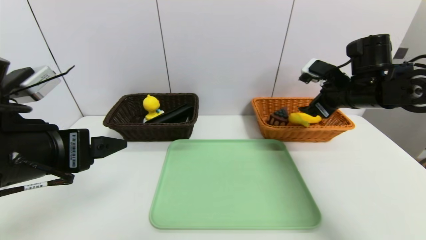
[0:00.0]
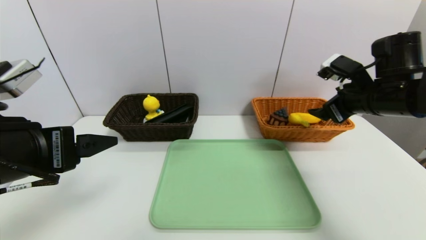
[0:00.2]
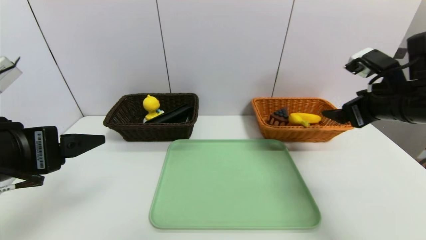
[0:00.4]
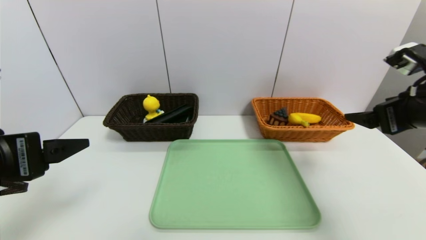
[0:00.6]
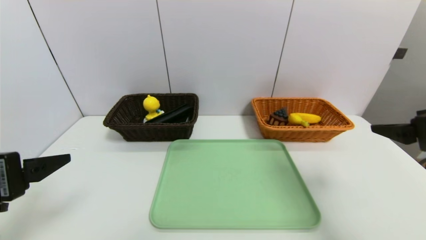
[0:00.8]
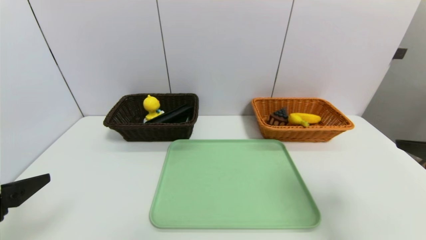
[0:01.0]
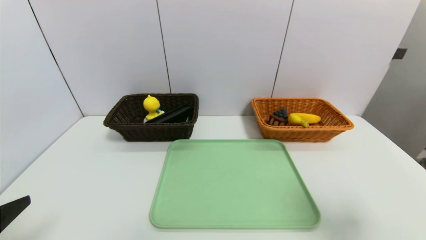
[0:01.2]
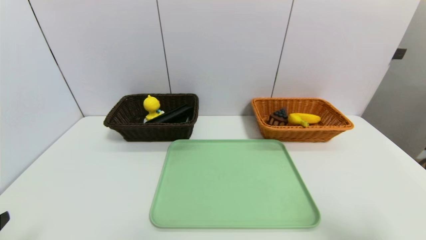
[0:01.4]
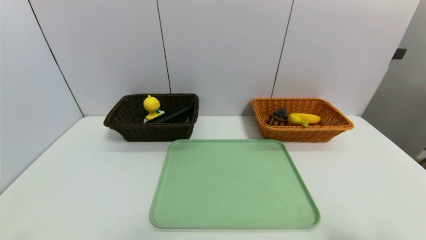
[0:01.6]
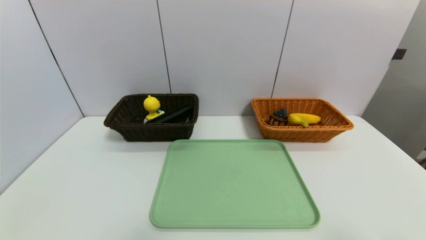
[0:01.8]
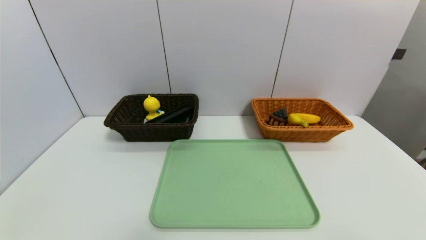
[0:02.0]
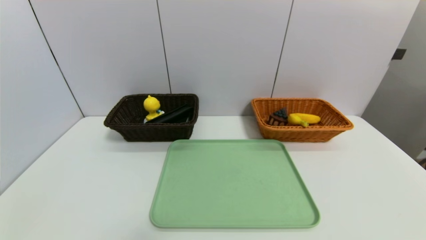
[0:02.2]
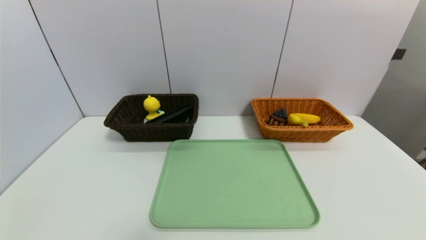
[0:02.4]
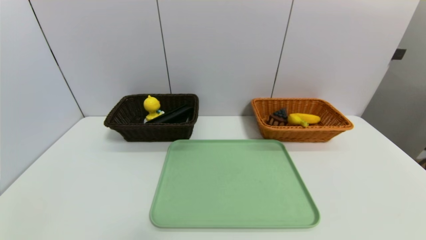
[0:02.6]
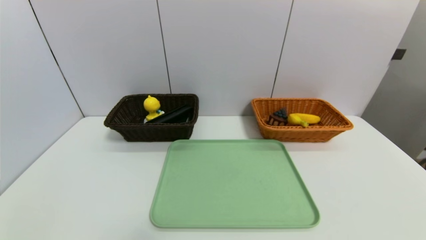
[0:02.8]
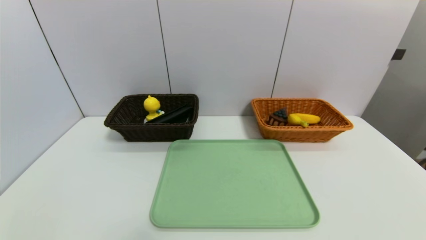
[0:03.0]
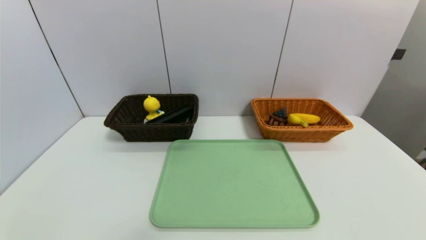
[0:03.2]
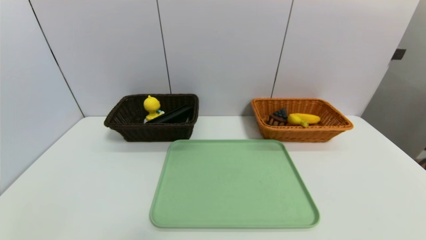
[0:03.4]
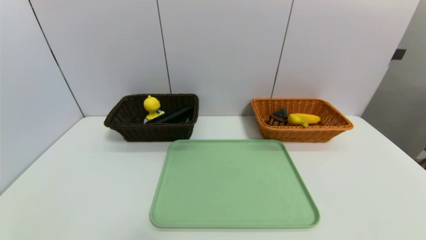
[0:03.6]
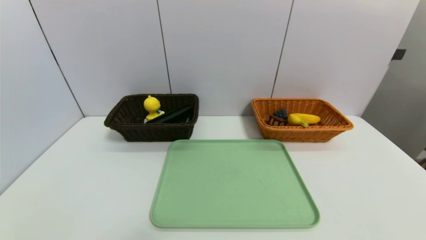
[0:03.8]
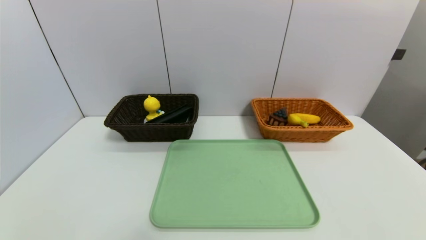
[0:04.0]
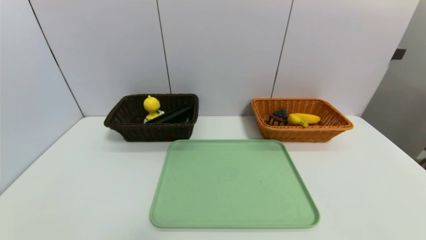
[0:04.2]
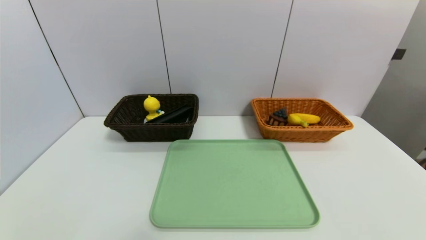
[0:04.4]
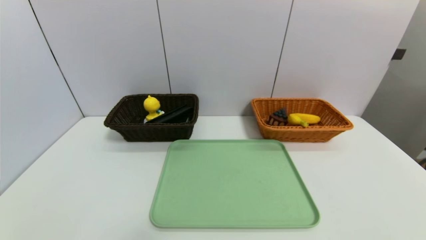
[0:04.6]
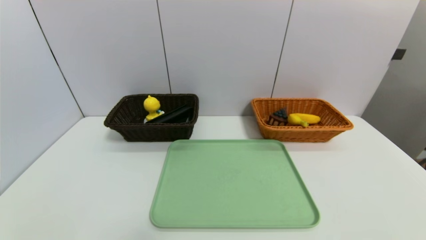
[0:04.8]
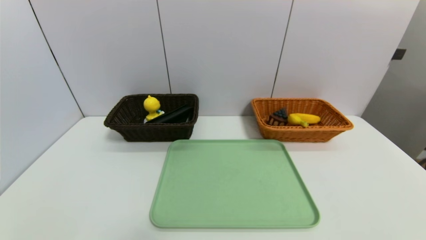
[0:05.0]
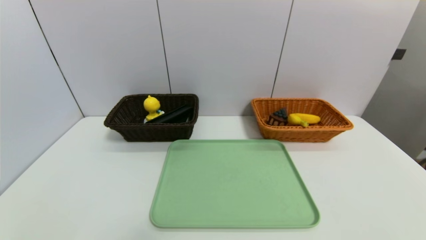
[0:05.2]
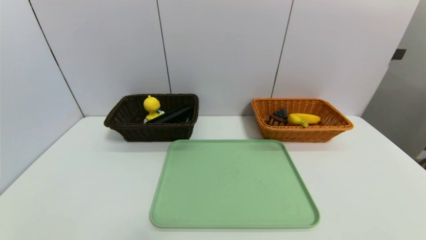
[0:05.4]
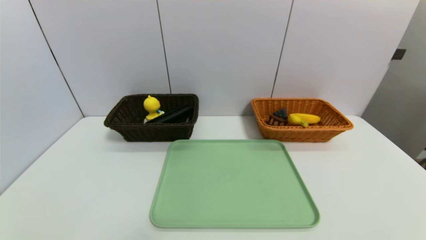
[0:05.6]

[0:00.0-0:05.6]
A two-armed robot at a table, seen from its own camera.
Task of the whole recording: place the food in the right basket with the right gripper, and place the non food items in the left basket with the left gripper.
0:00.0 to 0:01.4: The right gripper is displaced backward by some 30 cm. The left gripper goes about 15 cm backward, to the left and downward.
0:01.4 to 0:02.8: The right gripper heads backward and downward, covering roughly 15 cm.

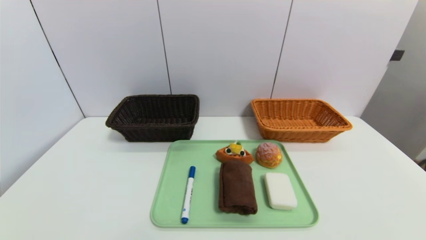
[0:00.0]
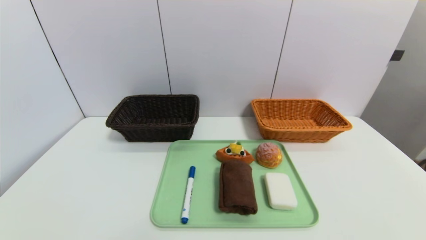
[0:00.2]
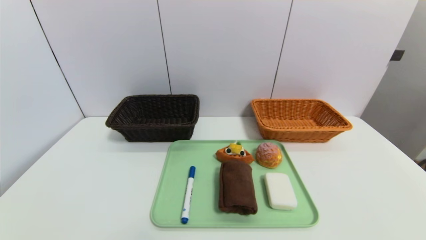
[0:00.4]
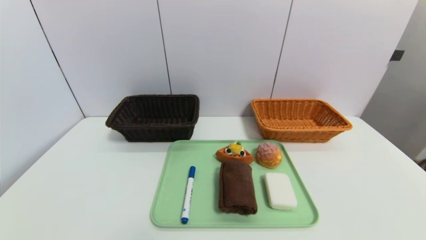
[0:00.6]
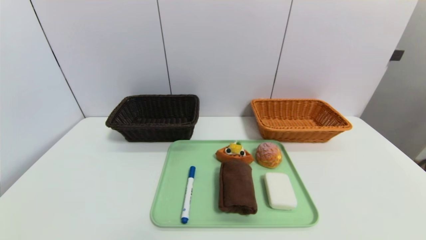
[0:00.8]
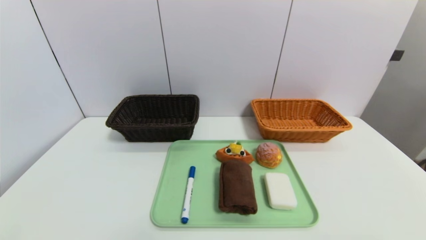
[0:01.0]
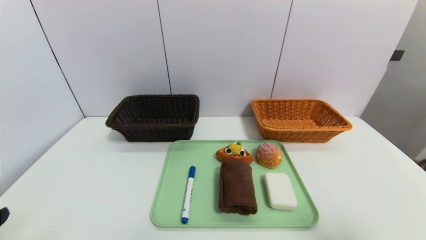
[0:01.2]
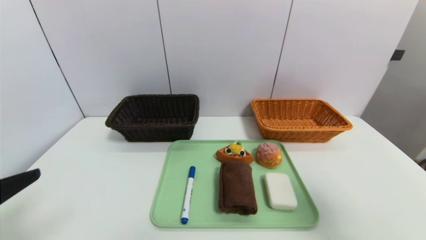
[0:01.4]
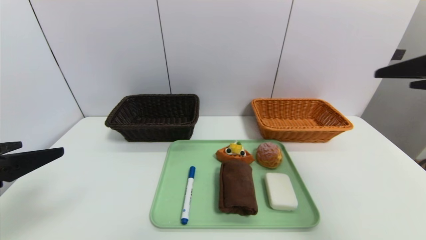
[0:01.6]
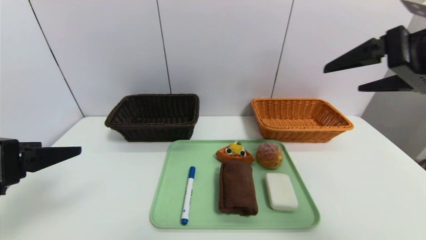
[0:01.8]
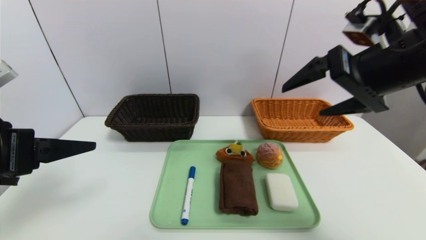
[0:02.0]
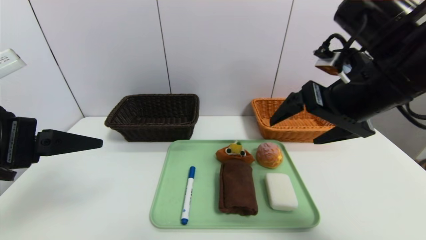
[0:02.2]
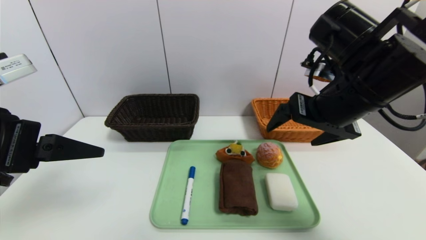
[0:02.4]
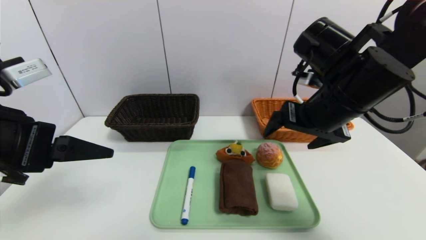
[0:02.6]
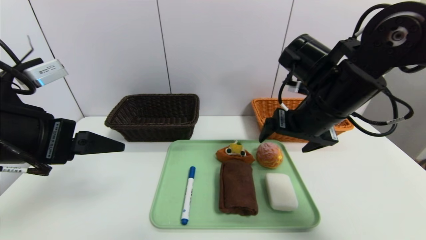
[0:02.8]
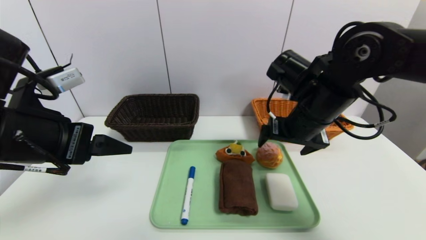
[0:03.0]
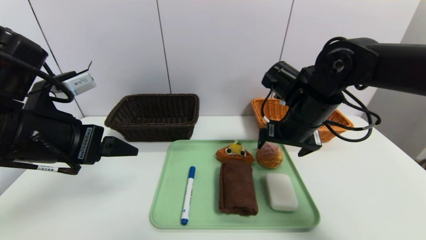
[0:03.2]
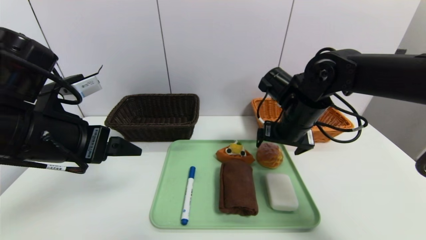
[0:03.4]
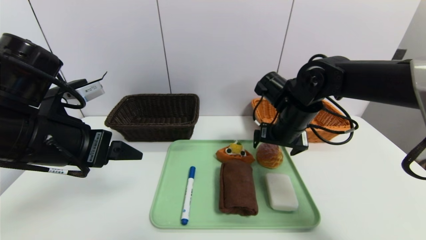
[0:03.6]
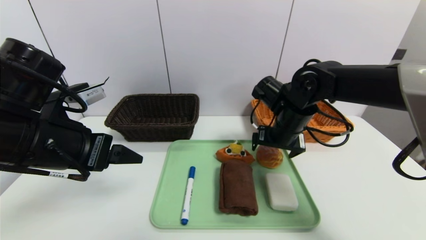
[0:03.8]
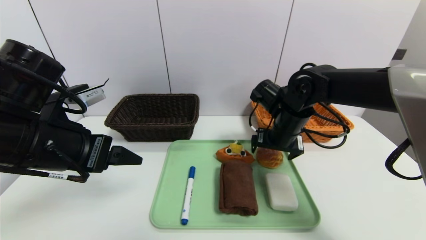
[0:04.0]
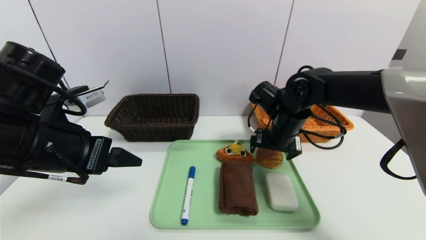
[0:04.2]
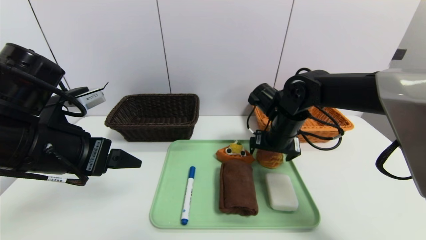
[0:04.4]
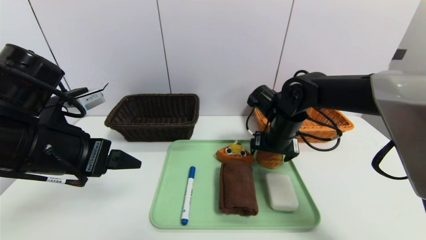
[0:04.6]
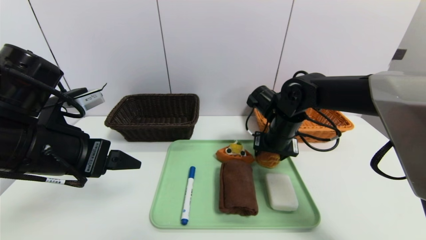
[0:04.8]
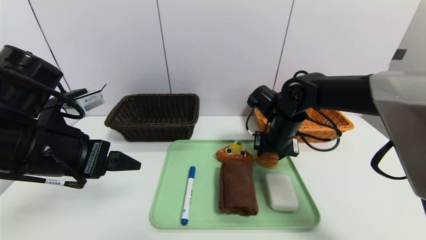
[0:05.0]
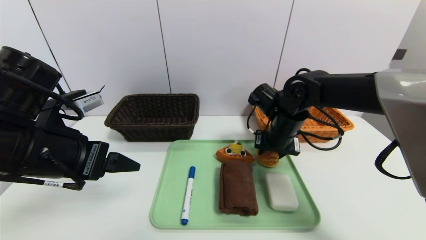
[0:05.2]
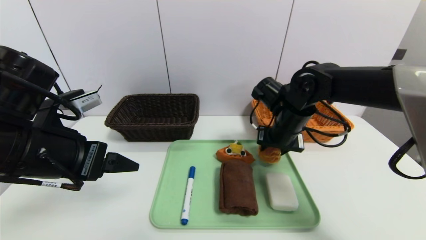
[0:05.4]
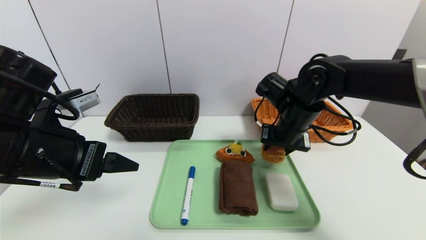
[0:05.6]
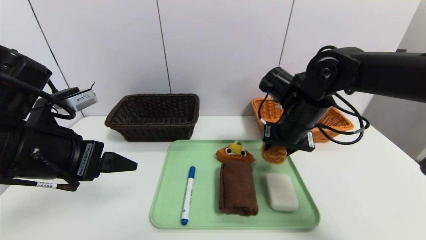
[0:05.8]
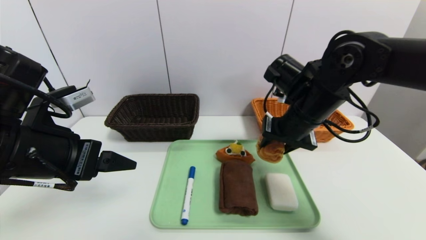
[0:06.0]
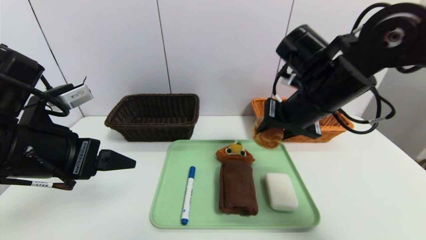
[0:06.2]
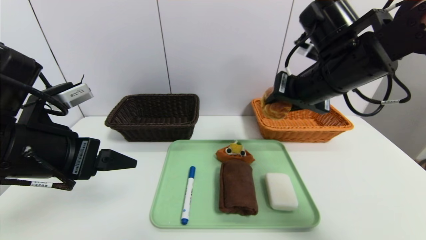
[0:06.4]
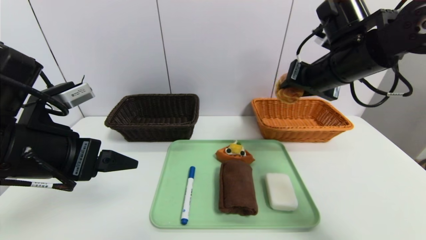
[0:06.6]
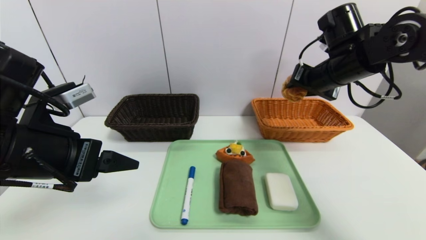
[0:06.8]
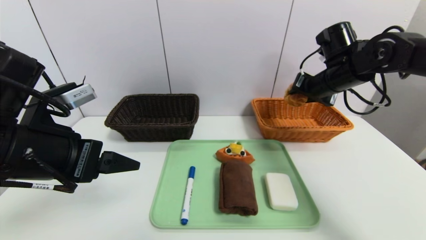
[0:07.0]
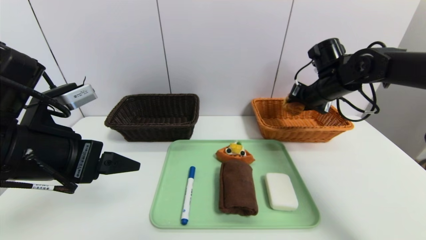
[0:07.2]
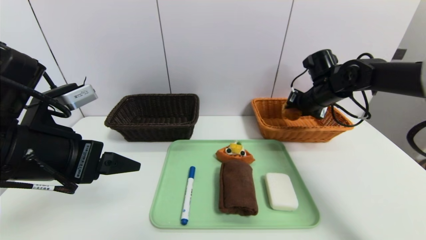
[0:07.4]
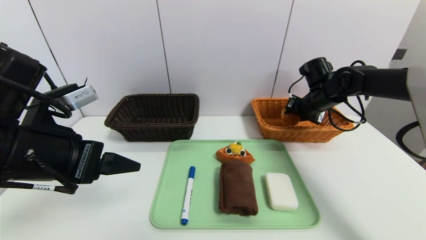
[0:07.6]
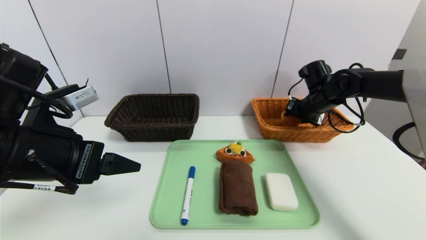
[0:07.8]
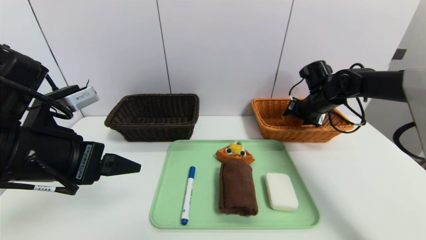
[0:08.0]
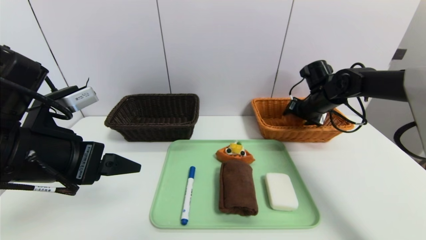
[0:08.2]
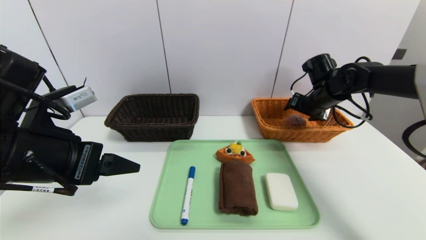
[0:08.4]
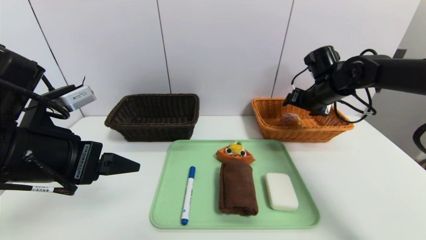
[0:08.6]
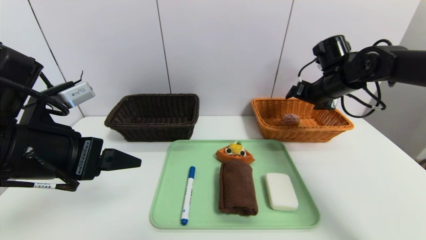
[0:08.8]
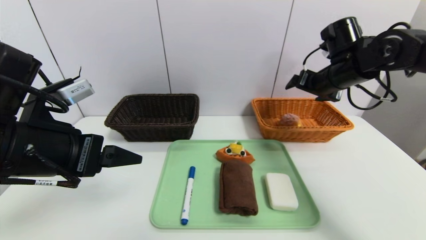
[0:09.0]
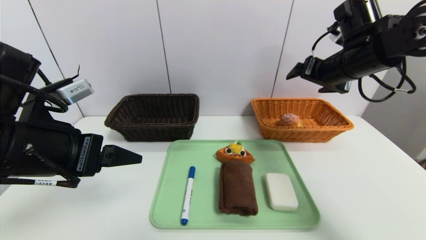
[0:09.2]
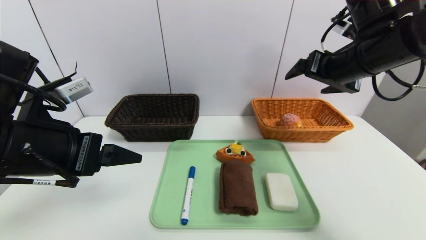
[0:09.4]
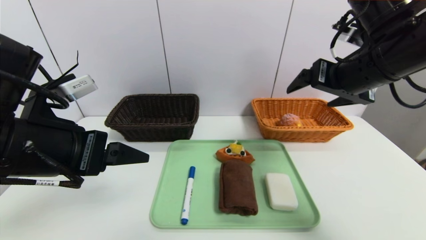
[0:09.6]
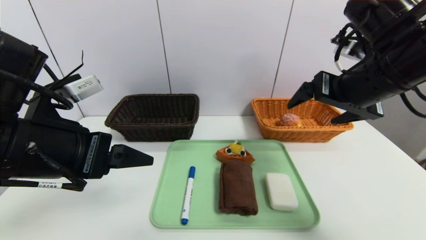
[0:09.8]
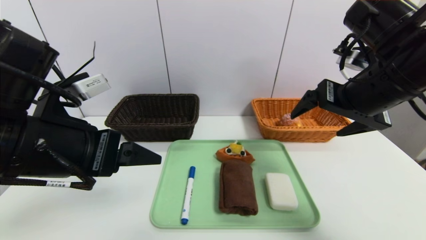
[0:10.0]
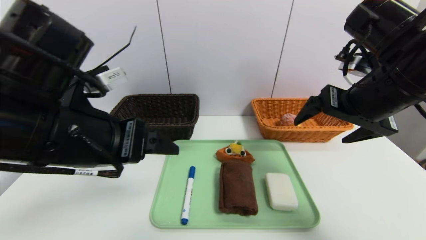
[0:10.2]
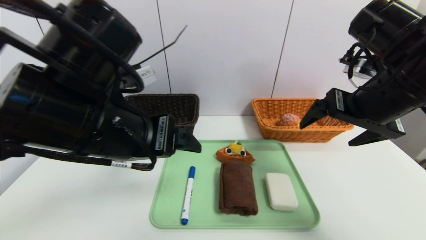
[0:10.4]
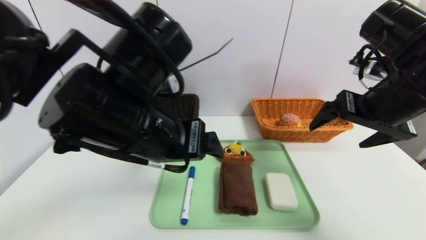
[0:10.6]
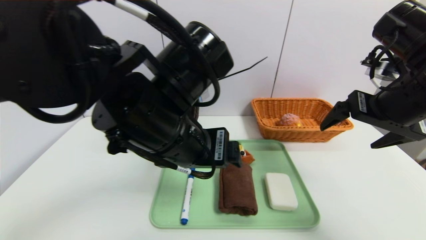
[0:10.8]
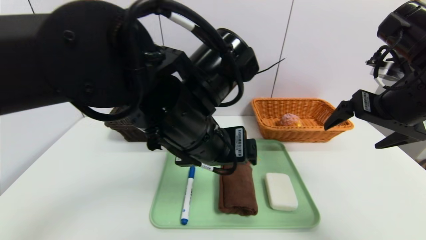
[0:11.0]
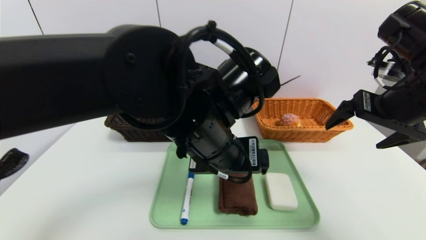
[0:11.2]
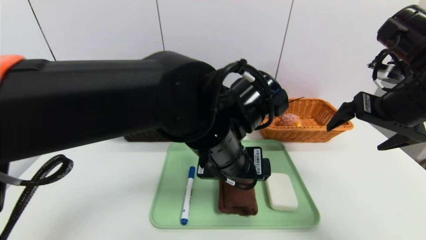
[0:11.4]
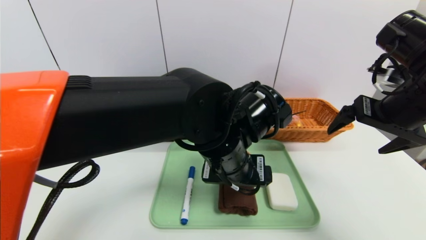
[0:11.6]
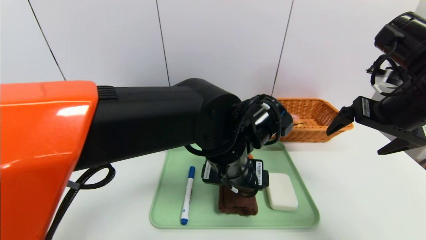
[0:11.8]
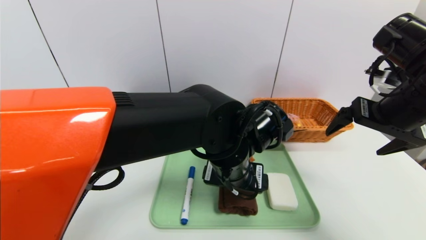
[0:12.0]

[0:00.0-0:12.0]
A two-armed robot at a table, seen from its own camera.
Task of the whole recording: place the food in the right basket with the right gripper, and place the non food items in the left basket with the left gripper.
Step, 0:00.0 to 0:08.6: Grasp the round bread and put it in the right basket.
0:00.0 to 0:01.6: The two grippers go roughly 30 cm upward and forward.
0:01.6 to 0:03.0: The left gripper shifts some 10 cm forward and to the right. Meanwhile the right gripper travels to the left, forward and downward by about 20 cm.
0:03.0 to 0:04.4: The right gripper goes some 10 cm downward and forward.
0:04.4 to 0:06.0: The right gripper heads upward and backward, covering about 10 cm, and closes.
0:06.0 to 0:07.6: The right gripper travels forward and to the right by roughly 20 cm.
0:07.6 to 0:09.0: The right gripper travels upward and backward by some 10 cm, and opens its fingers.
0:09.0 to 0:10.4: The left gripper travels to the right by about 10 cm; the right gripper is displaced backward by roughly 15 cm.
0:10.4 to 0:12.0: The left gripper moves to the right and downward, approximately 20 cm.
